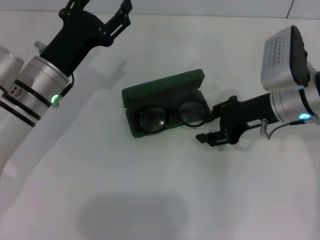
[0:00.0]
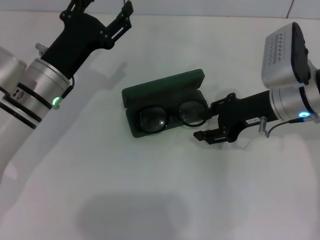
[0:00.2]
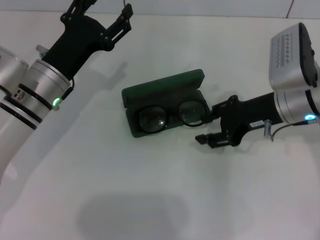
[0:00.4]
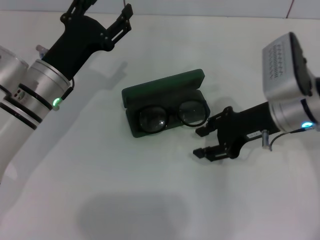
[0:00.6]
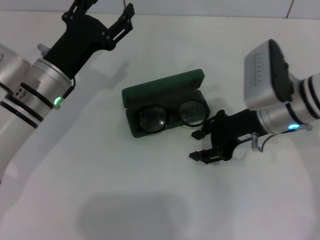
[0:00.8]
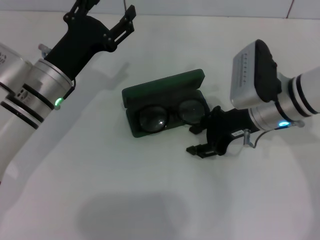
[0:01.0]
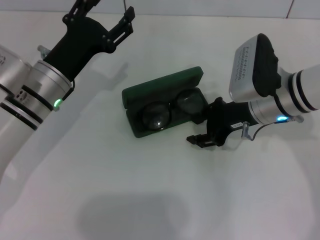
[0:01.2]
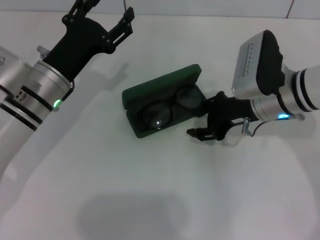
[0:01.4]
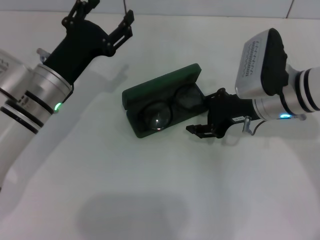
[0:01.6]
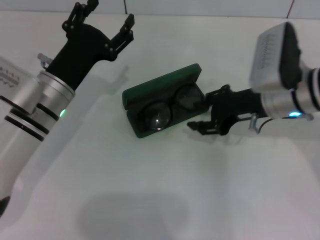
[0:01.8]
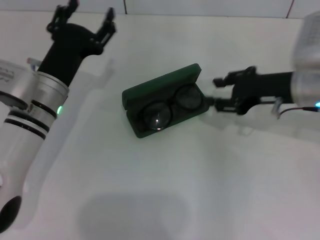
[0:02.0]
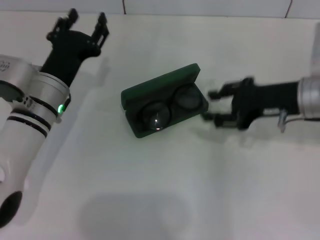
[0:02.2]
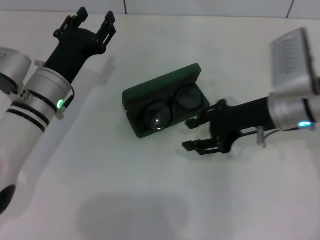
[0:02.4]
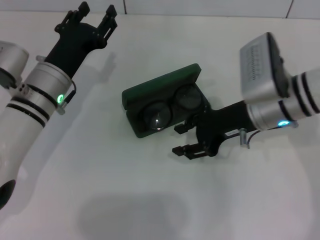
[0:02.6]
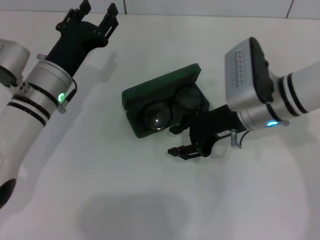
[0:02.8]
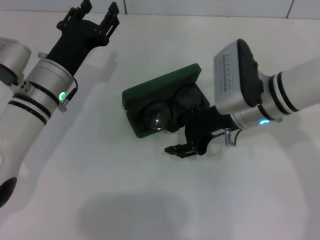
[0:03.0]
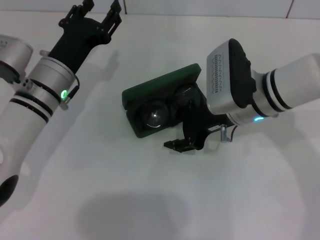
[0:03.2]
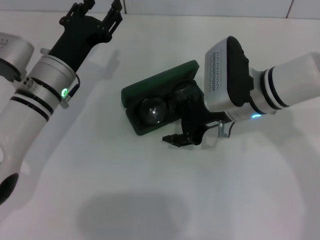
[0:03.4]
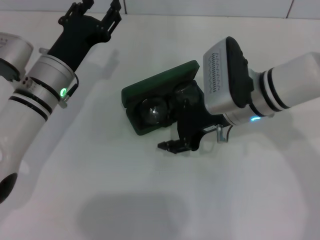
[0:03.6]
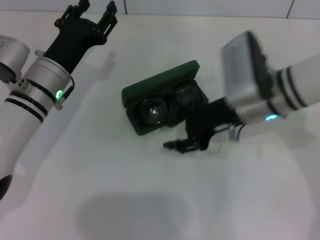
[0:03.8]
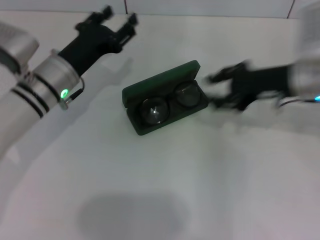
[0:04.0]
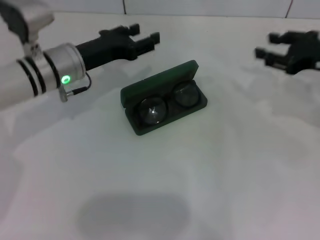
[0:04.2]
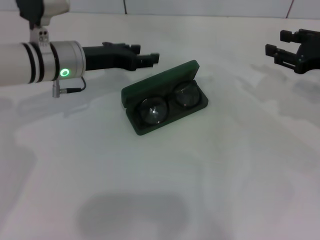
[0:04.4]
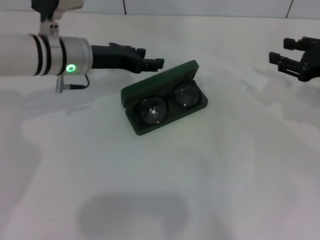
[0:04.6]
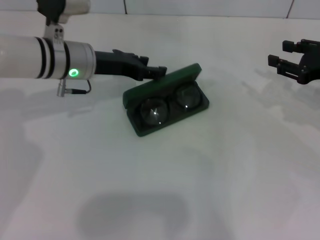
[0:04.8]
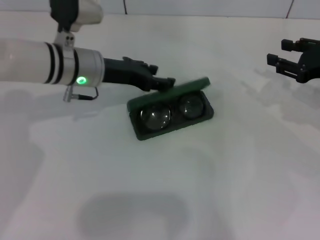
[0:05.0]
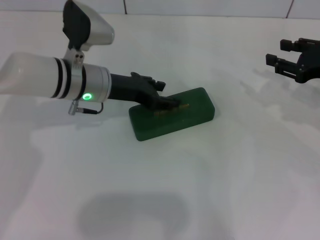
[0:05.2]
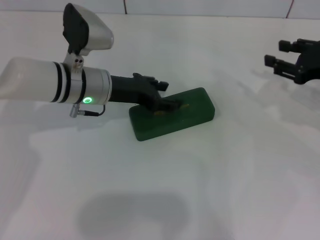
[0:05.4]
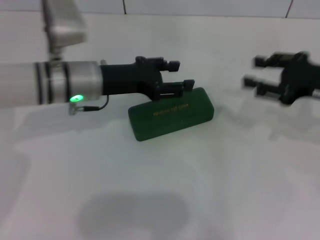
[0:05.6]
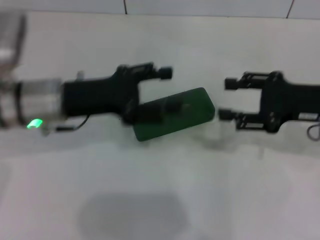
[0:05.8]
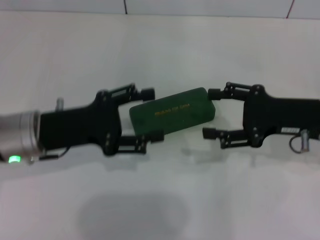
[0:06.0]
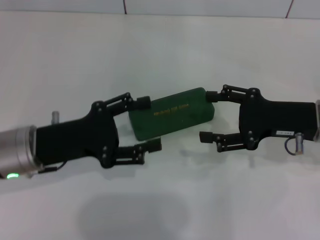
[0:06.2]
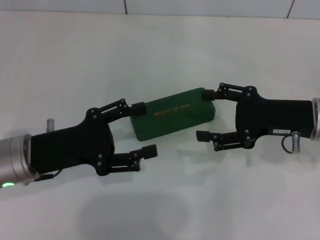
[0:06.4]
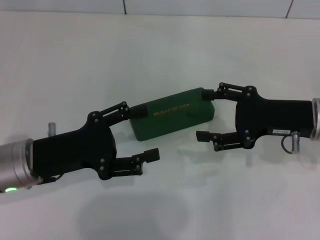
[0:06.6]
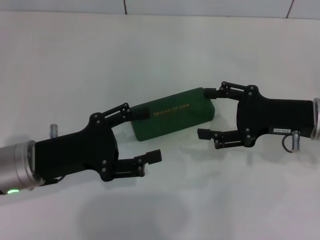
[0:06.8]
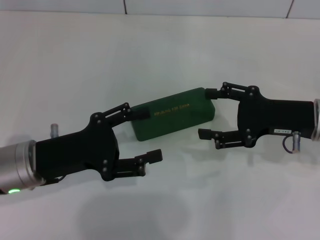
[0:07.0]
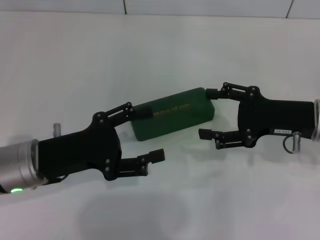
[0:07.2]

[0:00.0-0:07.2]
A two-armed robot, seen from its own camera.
Step, 0:00.0 to 0:05.0: Close the glasses case with your left hand.
0:00.0 to 0:01.4: The grippers make only small movements.
0:01.4 to 0:02.8: The right gripper moves approximately 5 cm to the right and comes back.
0:02.8 to 0:04.4: The left gripper goes roughly 5 cm forward, while the right gripper is displaced to the right by roughly 15 cm.
0:04.4 to 0:05.8: The right gripper changes place by roughly 5 cm. The left gripper goes roughly 10 cm backward.
0:05.8 to 0:07.2: The left gripper shifts approximately 10 cm backward. Meanwhile the right gripper opens.
